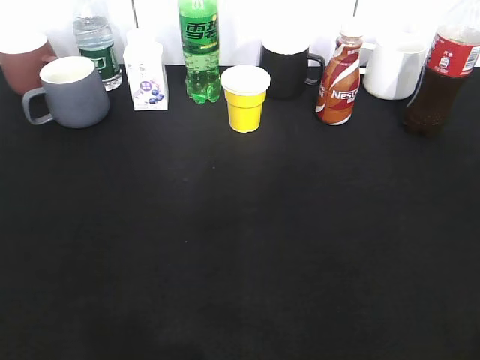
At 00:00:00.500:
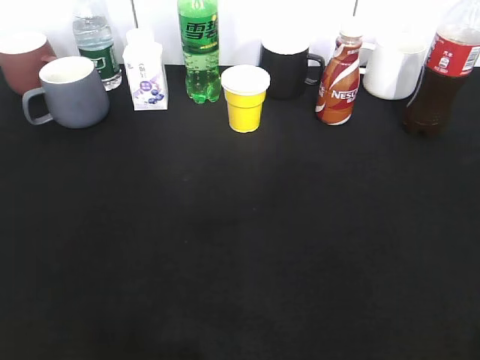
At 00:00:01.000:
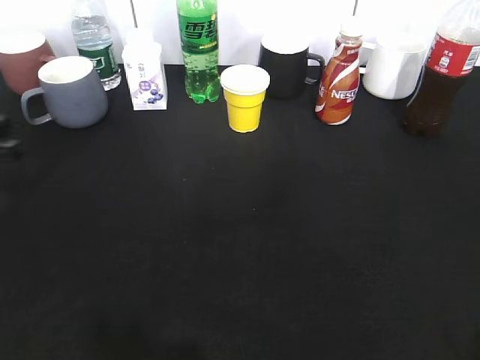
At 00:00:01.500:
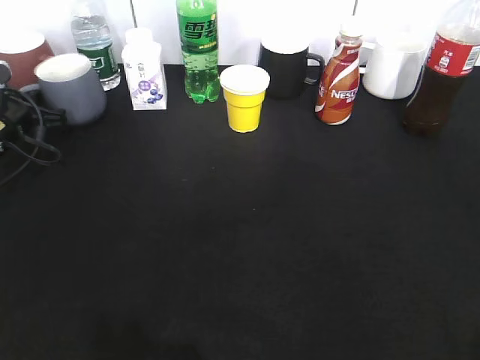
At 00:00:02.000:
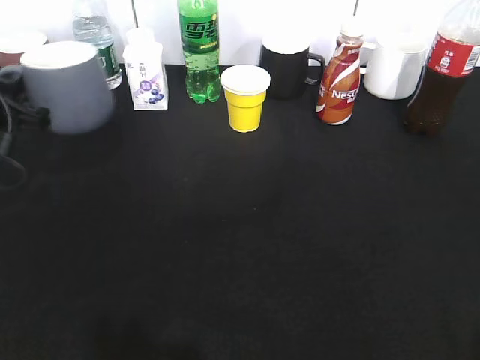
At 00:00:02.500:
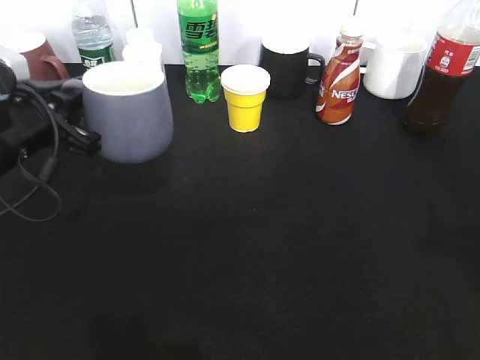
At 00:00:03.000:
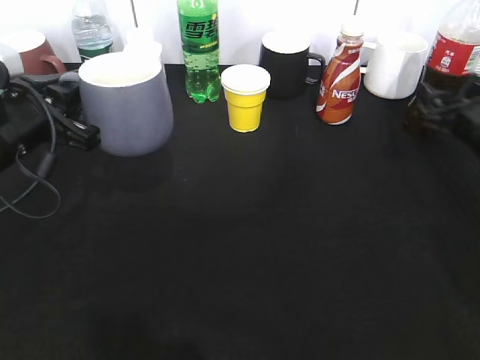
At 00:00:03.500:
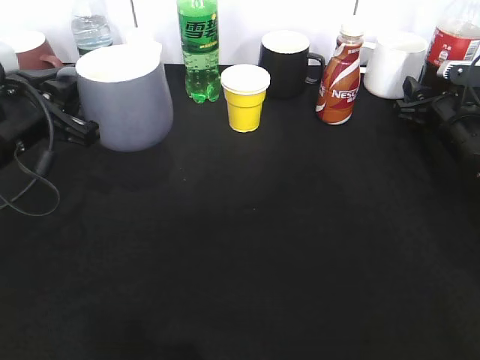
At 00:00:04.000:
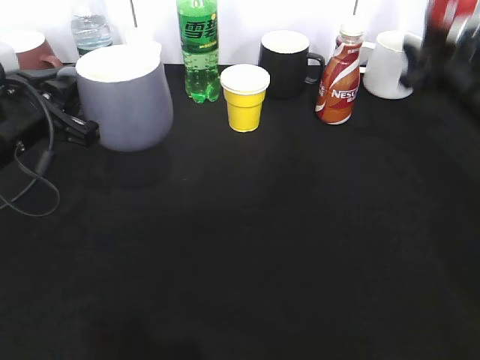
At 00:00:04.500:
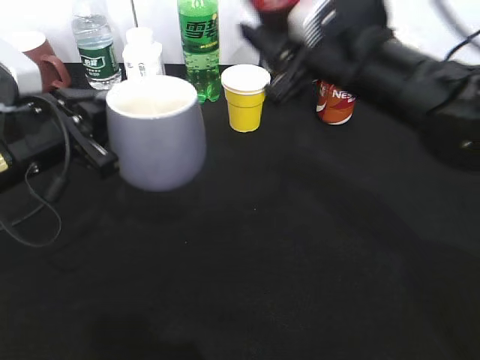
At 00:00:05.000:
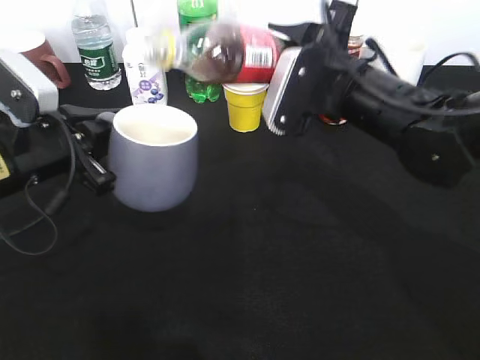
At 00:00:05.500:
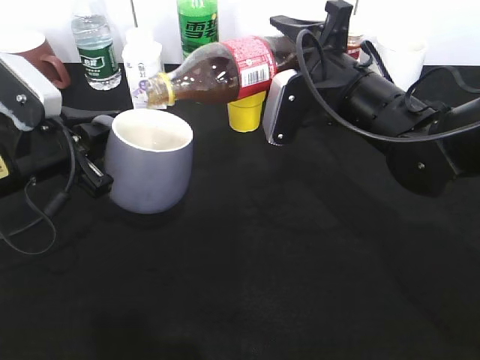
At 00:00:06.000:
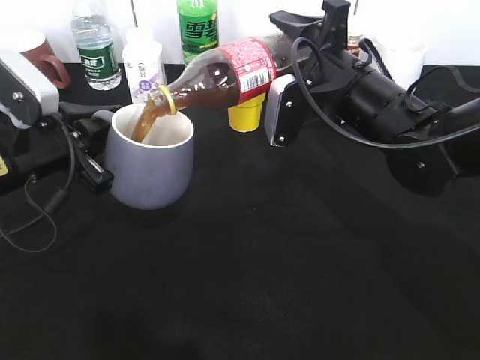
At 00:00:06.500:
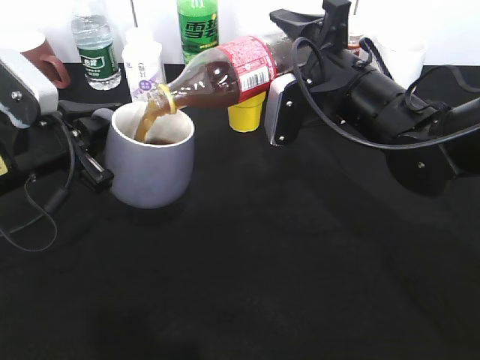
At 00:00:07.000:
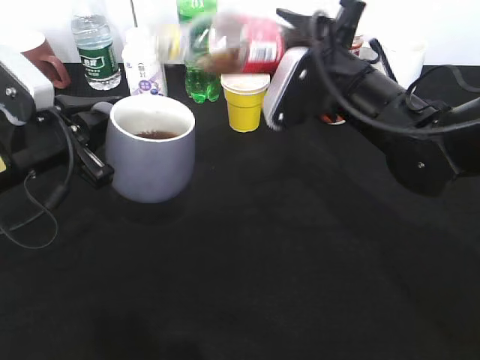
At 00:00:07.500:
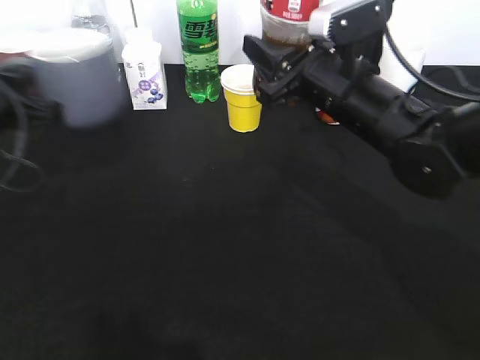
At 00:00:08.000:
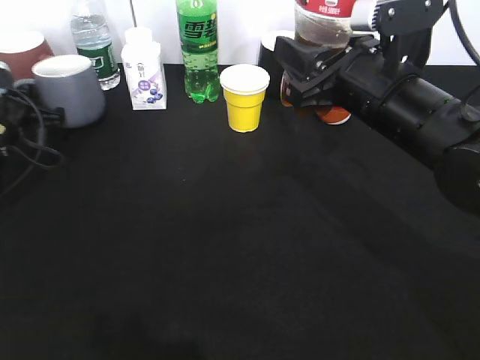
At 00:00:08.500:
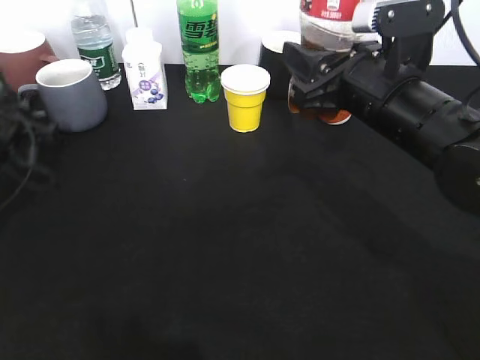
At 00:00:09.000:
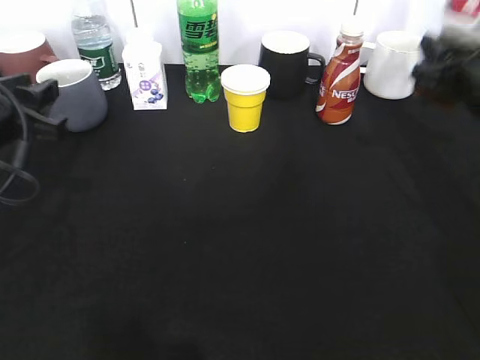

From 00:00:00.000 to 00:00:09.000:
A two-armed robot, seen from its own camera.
Step, from 00:00:00.000 to 00:00:01.500: Grasp the grey cup with left gripper.
Step, from 00:00:02.000 to 00:00:02.500: Lift the grey cup with left gripper.
Step, from 00:00:03.000 to 00:00:03.500: Grasp the bottle with cola with right gripper.
Step, from 00:00:04.000 to 00:00:06.500: Pour the cola from bottle to cup with right gripper.
Step, from 00:00:07.000 to 00:00:08.500: Place the grey cup on the table with left gripper.
From 00:00:00.000 to 00:00:02.000: The left gripper goes approximately 30 cm forward, and closes up.
From 00:00:02.000 to 00:00:04.500: The right gripper is displaced forward and to the left by roughly 35 cm, and closes its fingers. Meanwhile the left gripper moves to the right, approximately 10 cm.
From 00:00:07.000 to 00:00:09.000: The right gripper is displaced to the right by approximately 15 cm. The left gripper moves roughly 15 cm forward and comes back, and opens its fingers.

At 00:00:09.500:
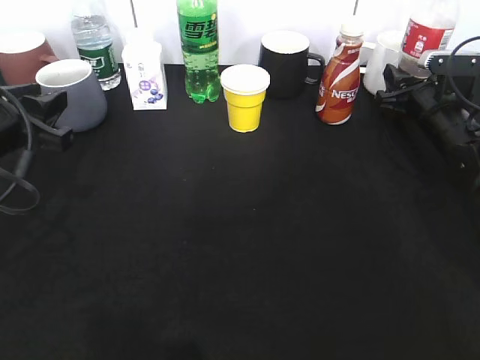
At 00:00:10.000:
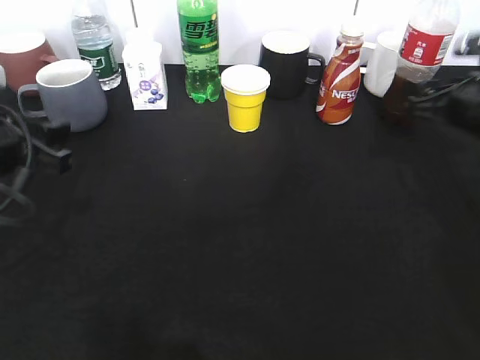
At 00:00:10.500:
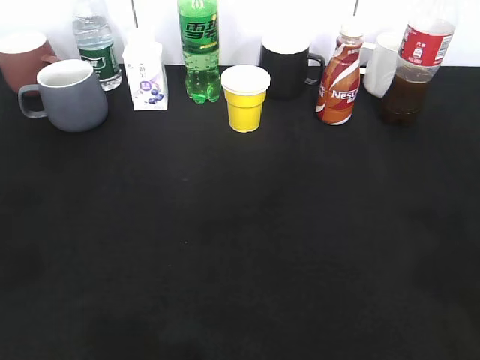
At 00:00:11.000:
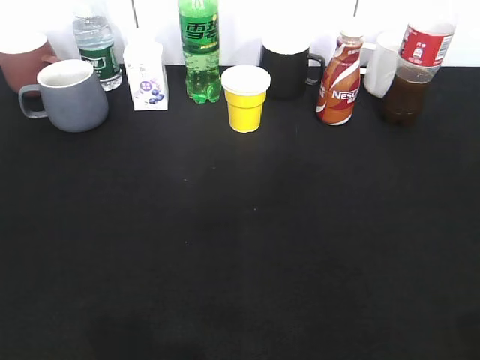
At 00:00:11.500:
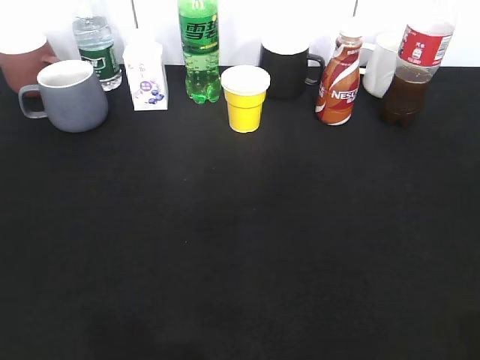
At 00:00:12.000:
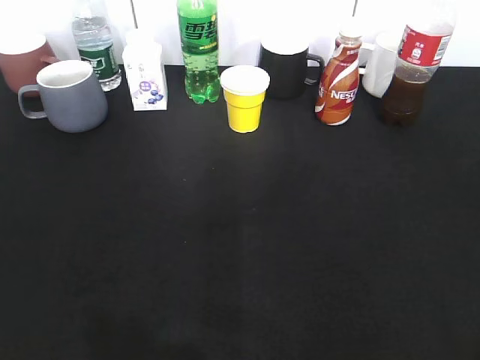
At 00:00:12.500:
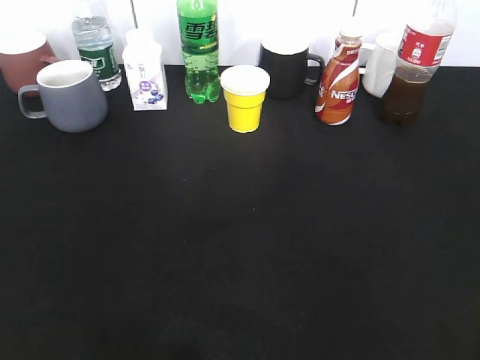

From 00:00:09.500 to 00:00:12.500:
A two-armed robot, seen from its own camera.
Step, from 00:00:09.500 to 00:00:10.000: Place the cola bottle on the table with right gripper.
From 00:00:09.500 to 00:00:11.000: The left gripper shifts roughly 25 cm backward, and opens. The right gripper heads backward and upward, covering roughly 40 cm, and opens up.

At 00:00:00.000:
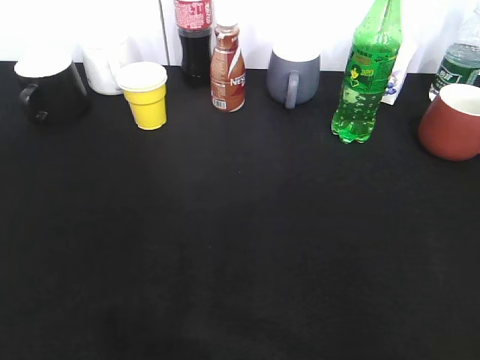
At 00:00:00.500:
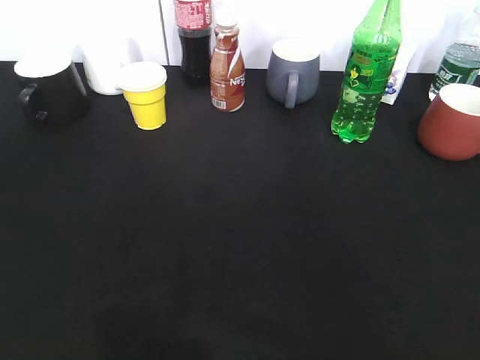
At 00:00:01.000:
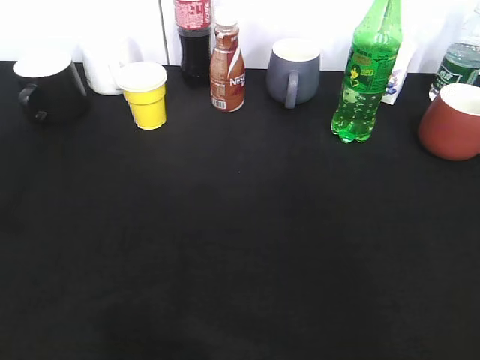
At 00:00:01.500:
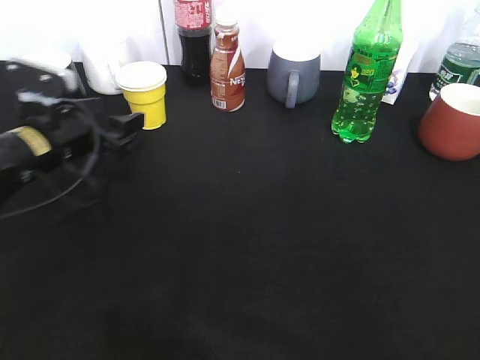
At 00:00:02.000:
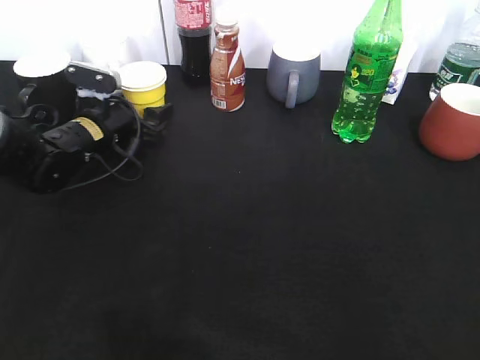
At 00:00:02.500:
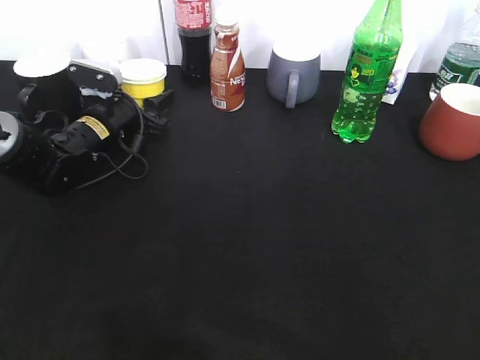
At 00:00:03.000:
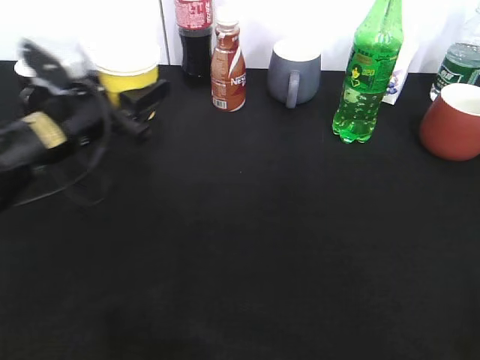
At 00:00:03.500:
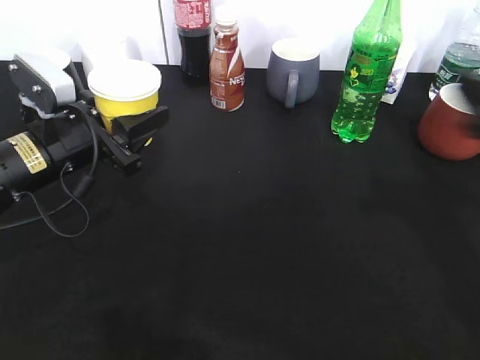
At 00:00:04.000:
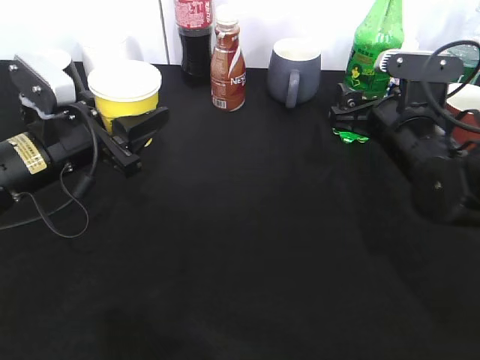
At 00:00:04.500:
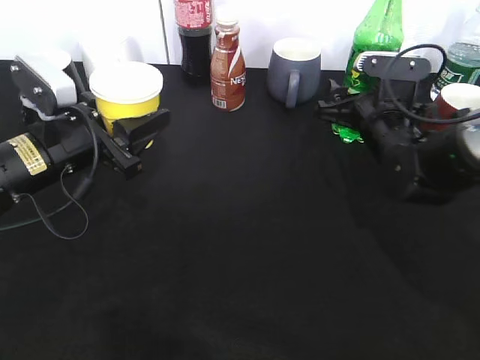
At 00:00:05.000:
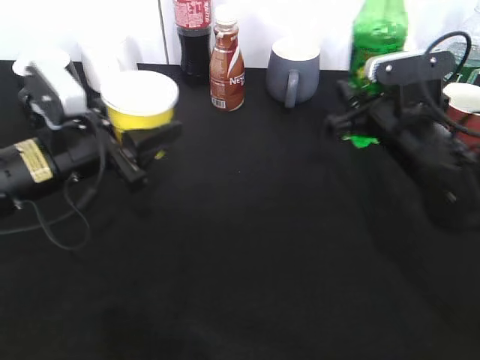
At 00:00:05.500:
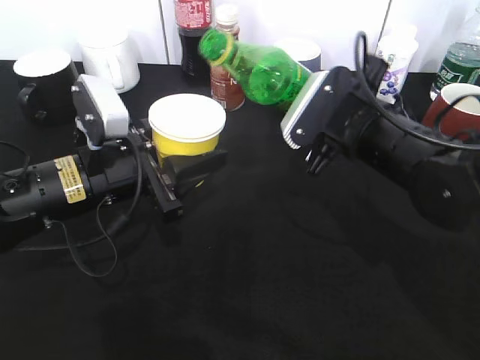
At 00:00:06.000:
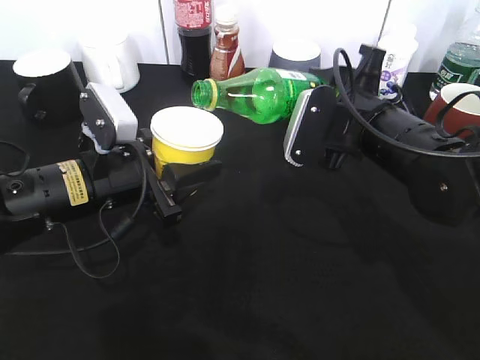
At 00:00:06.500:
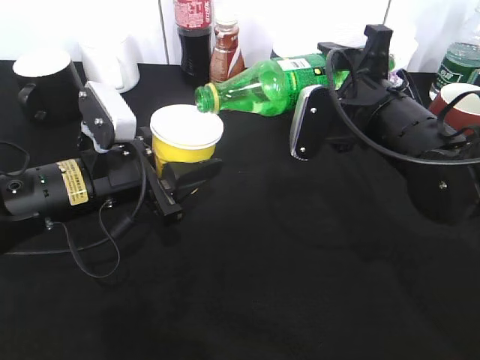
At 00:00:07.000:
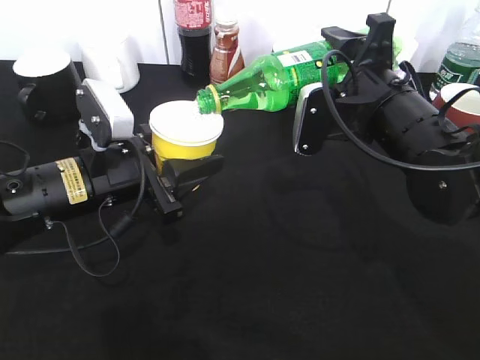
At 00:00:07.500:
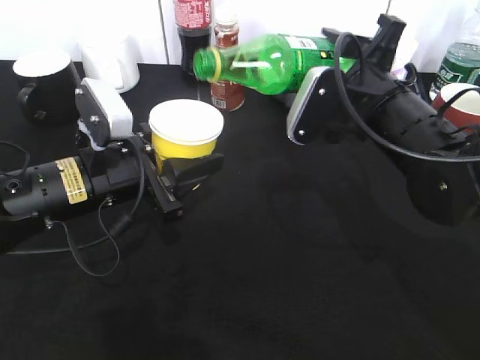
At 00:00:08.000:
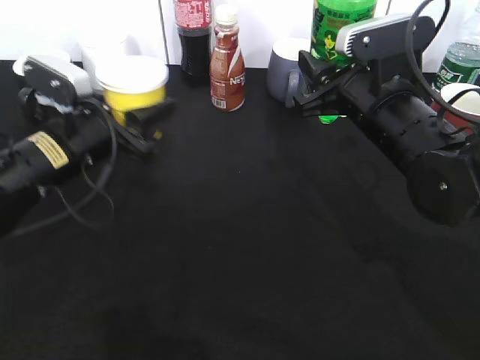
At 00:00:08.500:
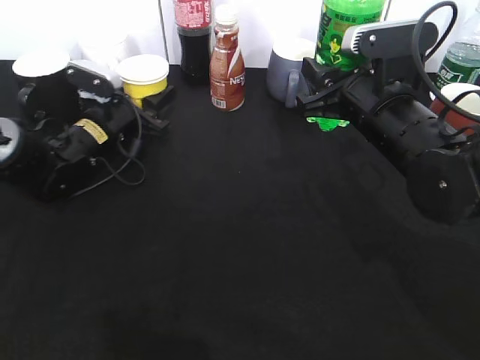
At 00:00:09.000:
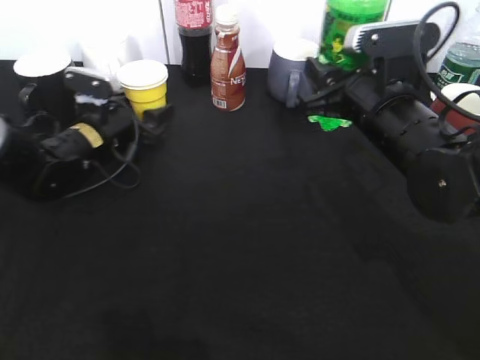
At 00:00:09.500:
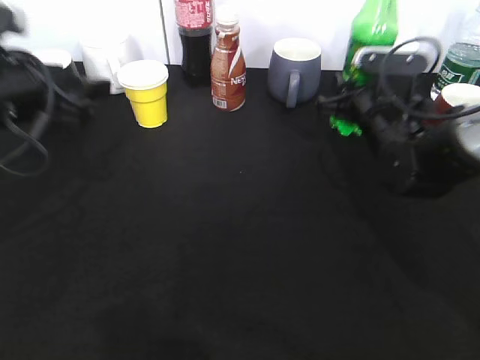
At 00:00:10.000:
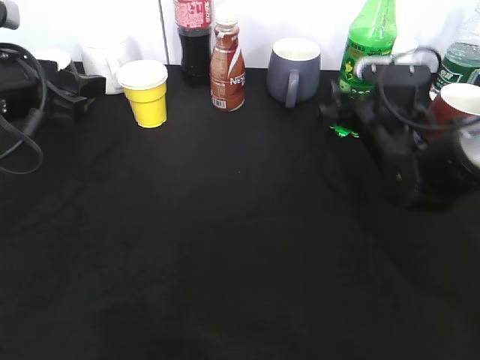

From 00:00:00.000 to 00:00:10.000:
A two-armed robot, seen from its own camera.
Step, from 00:00:00.000 to 00:00:02.500: Grasp the yellow paper cup with left gripper.
Step, from 00:00:04.000 to 00:00:04.500: Grasp the bottle with sprite with right gripper.
Step, from 00:00:05.000 to 00:00:07.500: Pour the sprite from bottle to cup with right gripper.
From 00:00:00.000 to 00:00:02.000: The left gripper heads forward and downward, covering roughly 50 cm.
From 00:00:02.000 to 00:00:04.000: The left gripper shifts approximately 15 cm backward and upward, and closes up; the right gripper goes some 35 cm forward and downward.
From 00:00:04.000 to 00:00:06.000: The right gripper ends up about 5 cm from where it was, and closes up, while the left gripper changes place by roughly 5 cm.
From 00:00:06.000 to 00:00:08.000: The left gripper shifts by some 5 cm.
From 00:00:08.000 to 00:00:10.000: The right gripper goes some 10 cm downward and forward, and opens, while the left gripper heads upward, covering about 10 cm, and opens.

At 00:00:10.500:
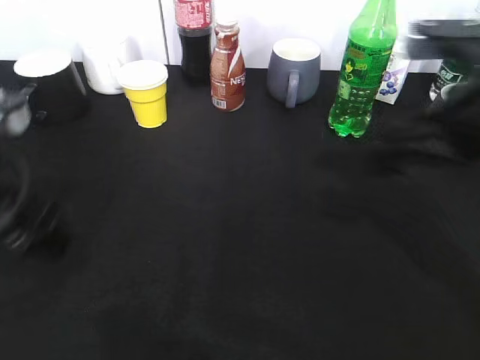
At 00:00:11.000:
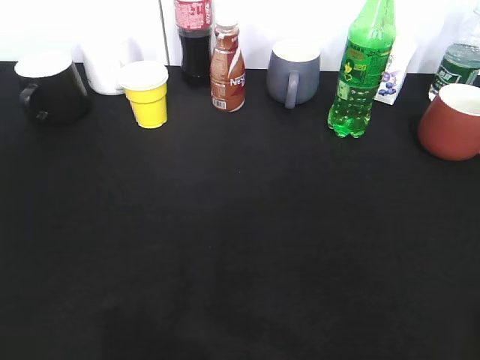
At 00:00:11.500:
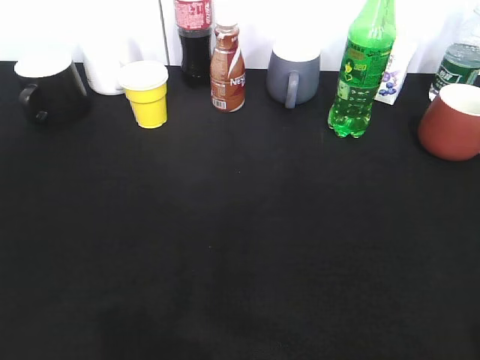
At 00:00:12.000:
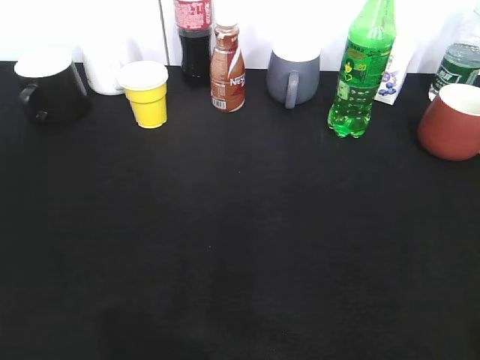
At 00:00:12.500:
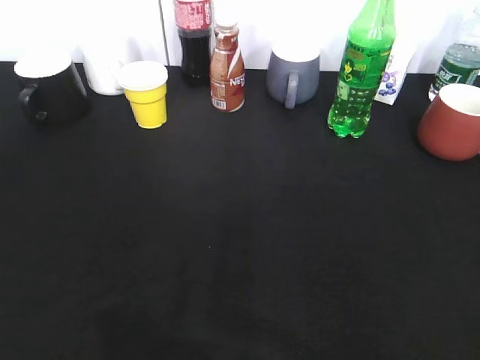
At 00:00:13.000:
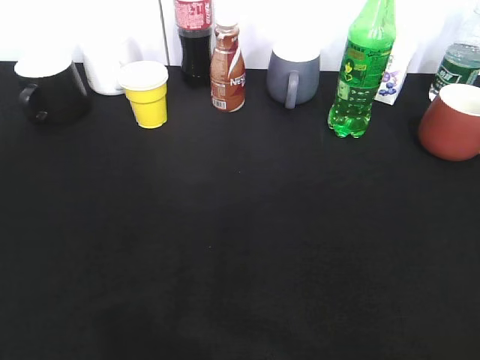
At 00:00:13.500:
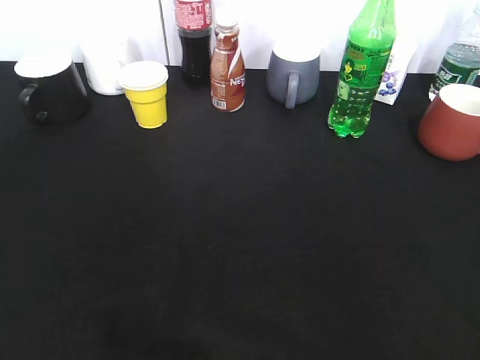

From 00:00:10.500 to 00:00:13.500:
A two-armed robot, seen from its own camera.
From 00:00:10.500 to 00:00:12.000: The left gripper goes roughly 20 cm backward and to the left; the right gripper is displaced backward and to the right by approximately 25 cm.
